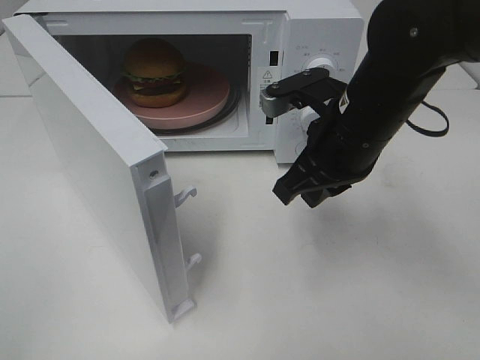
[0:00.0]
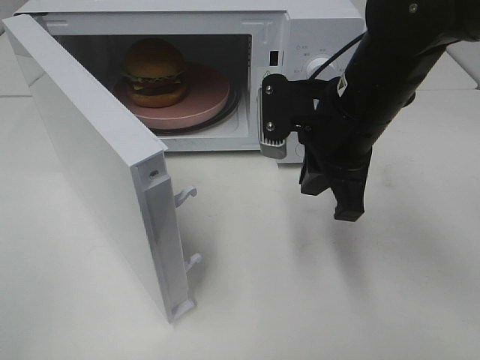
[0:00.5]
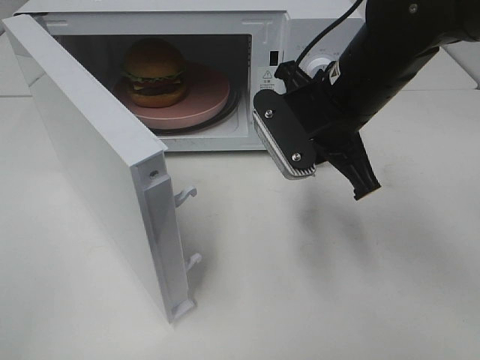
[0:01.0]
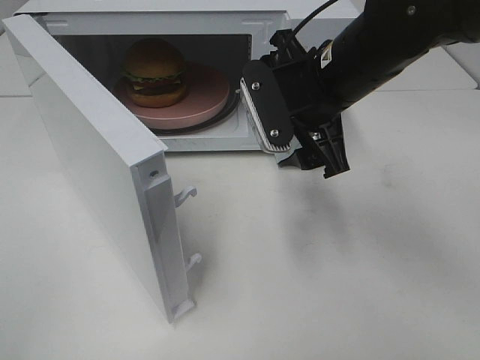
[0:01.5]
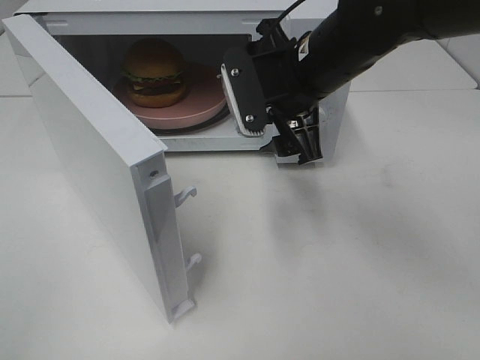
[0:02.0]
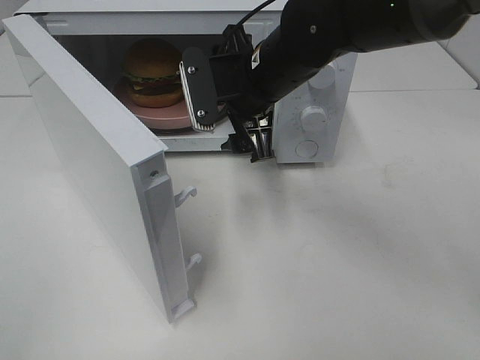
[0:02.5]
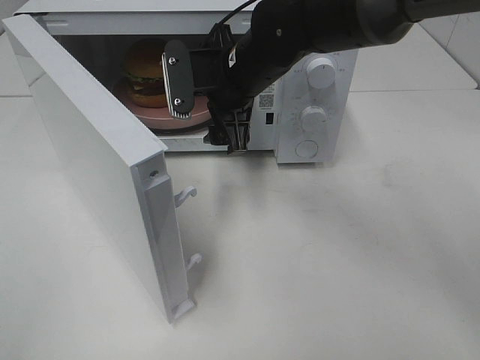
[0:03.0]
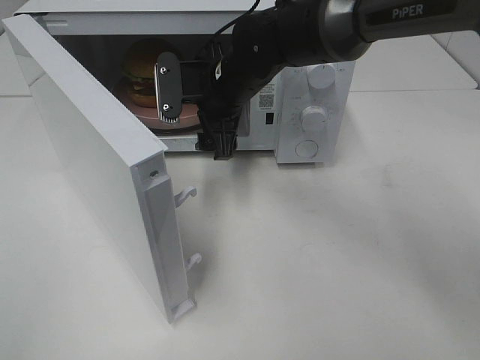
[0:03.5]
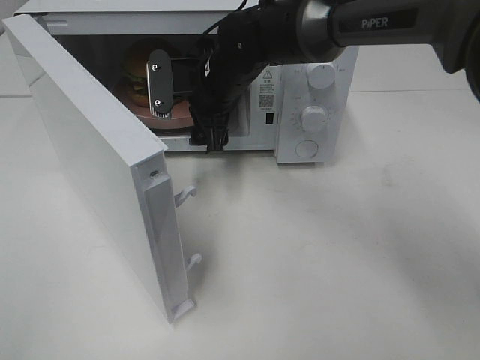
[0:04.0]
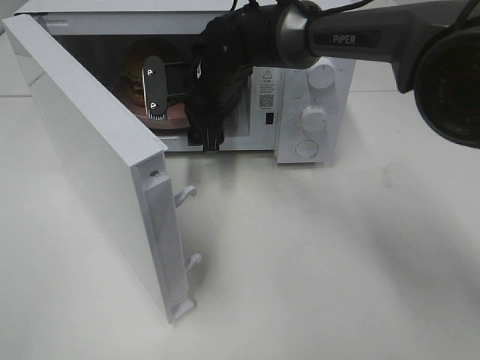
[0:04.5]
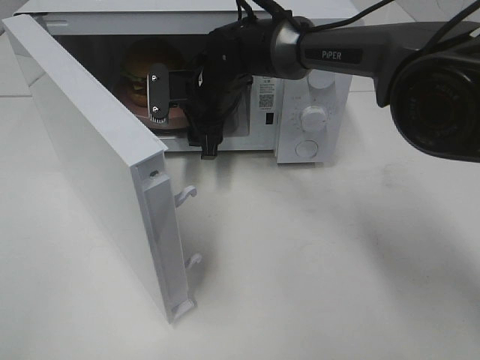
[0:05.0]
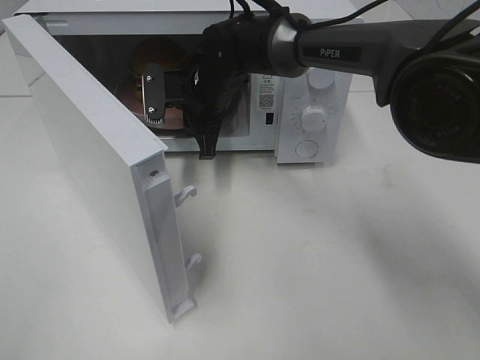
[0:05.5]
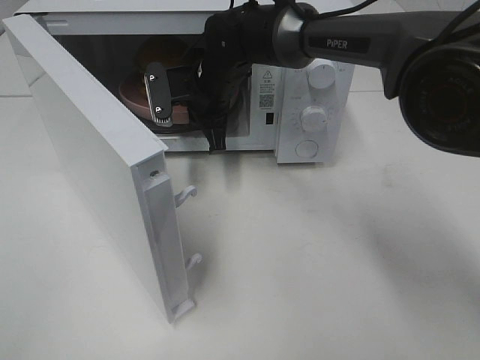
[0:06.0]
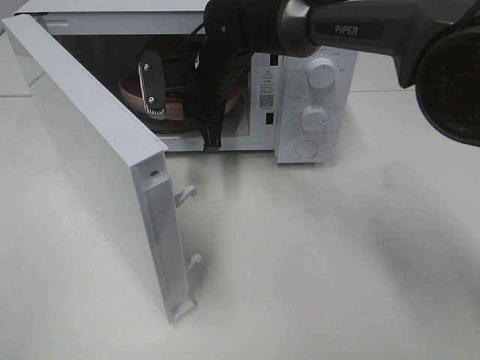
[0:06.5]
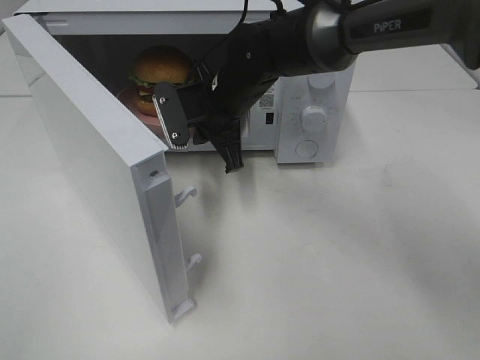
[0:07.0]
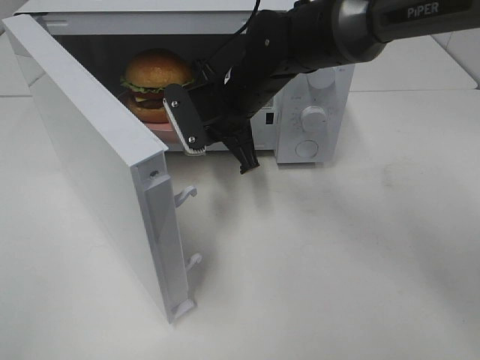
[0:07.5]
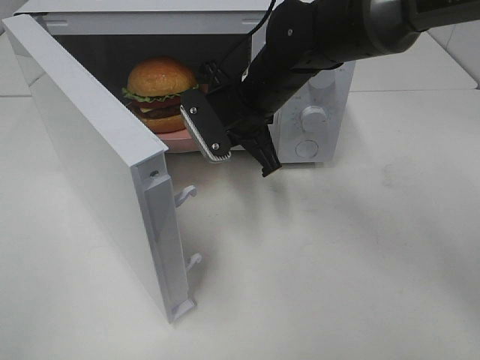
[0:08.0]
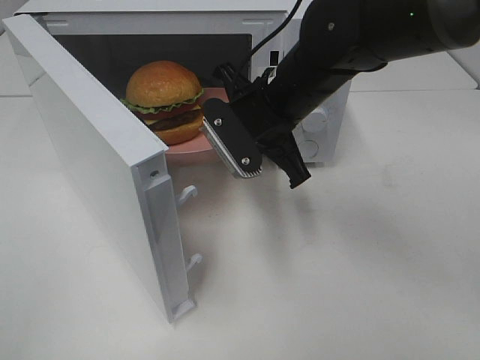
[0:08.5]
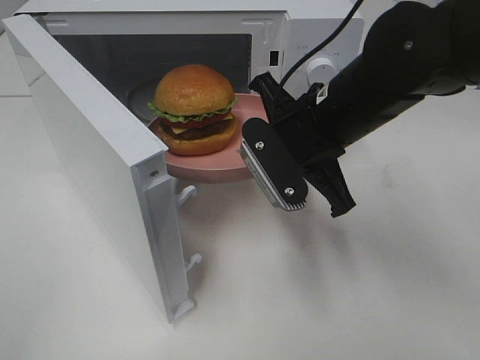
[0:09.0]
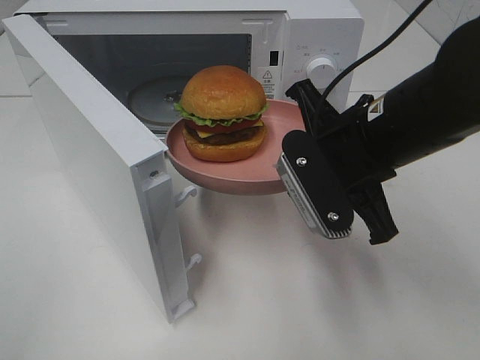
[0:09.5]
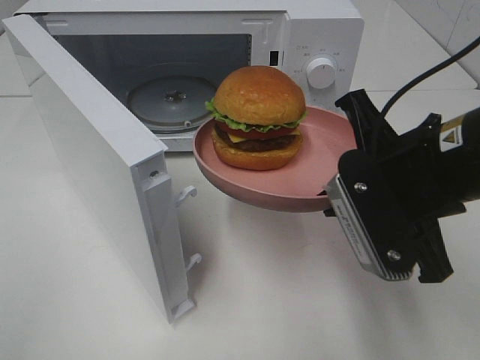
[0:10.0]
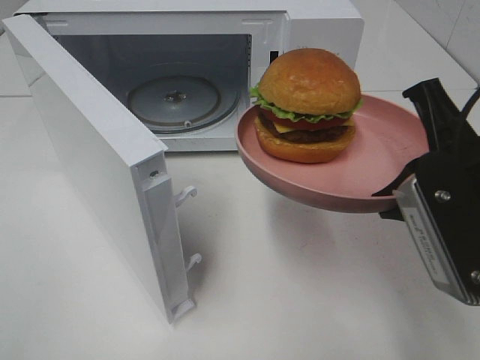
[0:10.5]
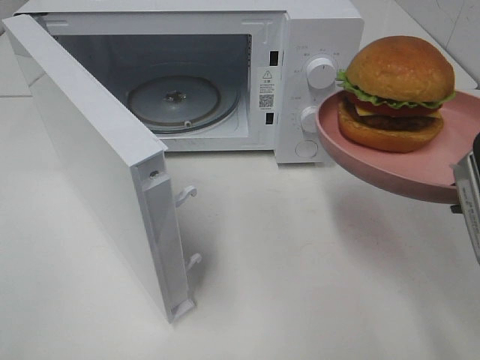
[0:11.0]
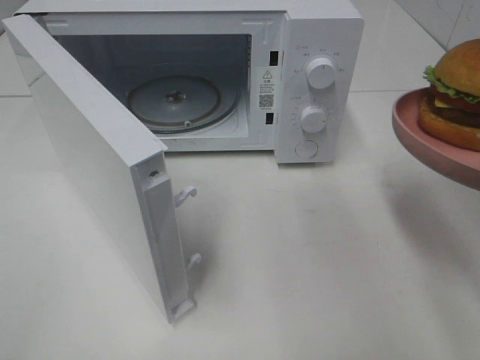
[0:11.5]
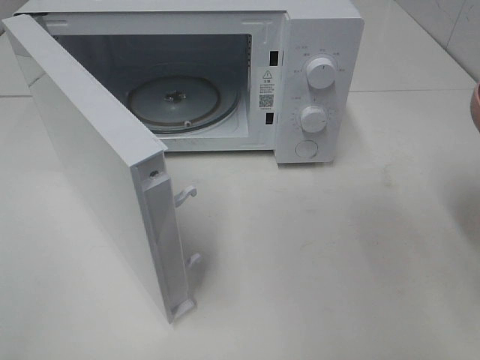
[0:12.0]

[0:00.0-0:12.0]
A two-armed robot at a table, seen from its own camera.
Task of the whole recording: Heat the burger.
Step, 0.0 to 6.0 s: Right hand: grab the plate with the hamburger.
0.0 to 2.0 s: The right gripper goes approximately 5 cm forward, and opens its fingers.
2.0 to 4.0 s: The right gripper moves to the left, forward and downward, approximately 15 cm.
4.0 to 6.0 s: The right gripper closes up.
6.0 to 8.0 s: The right gripper shifts some 10 cm backward and to the right.
8.0 to 10.0 s: The right gripper moves backward and to the right, some 20 cm.
10.0 to 12.0 s: The right gripper heads to the right, covering roughly 10 cm.

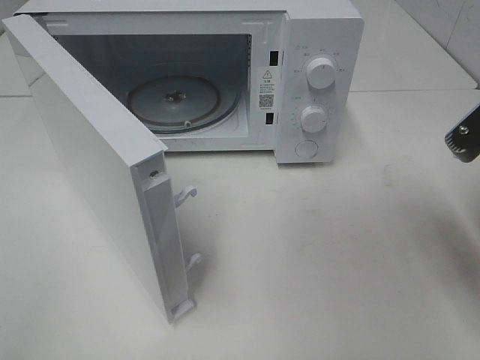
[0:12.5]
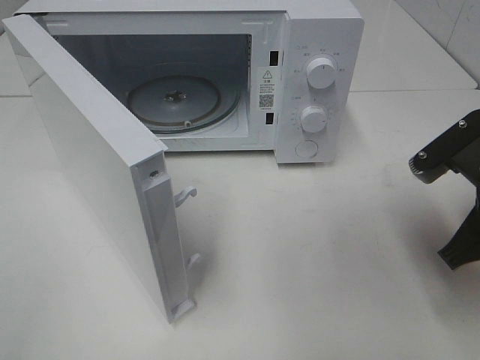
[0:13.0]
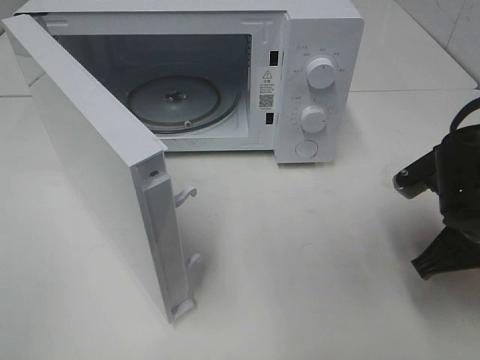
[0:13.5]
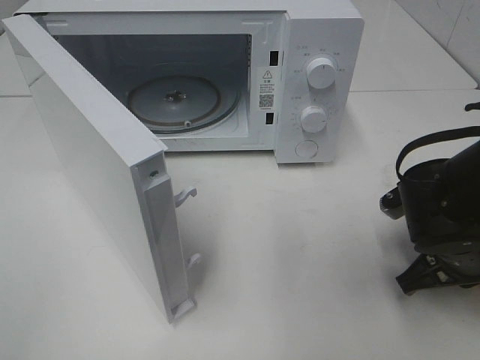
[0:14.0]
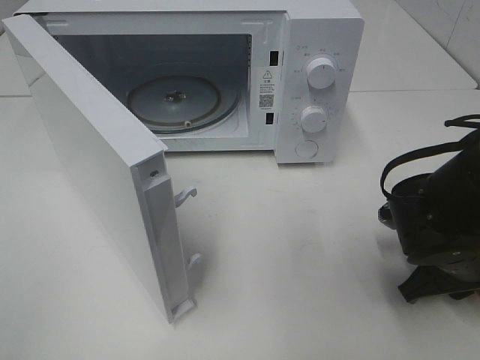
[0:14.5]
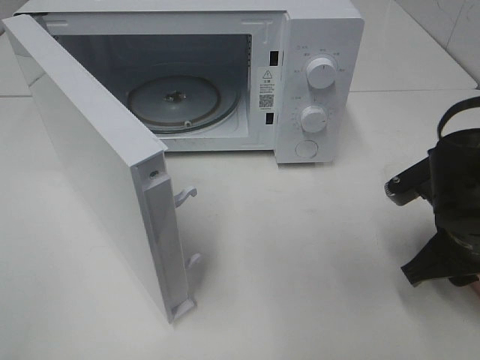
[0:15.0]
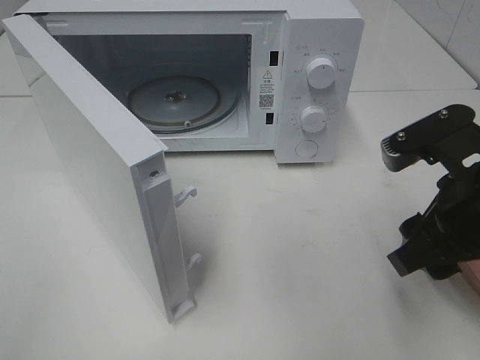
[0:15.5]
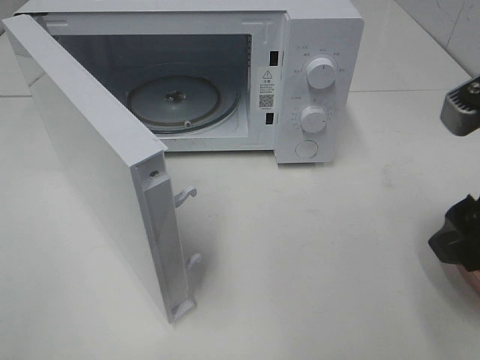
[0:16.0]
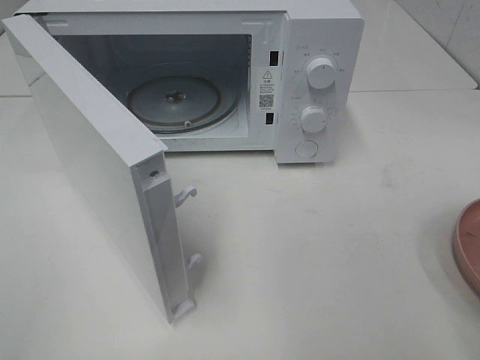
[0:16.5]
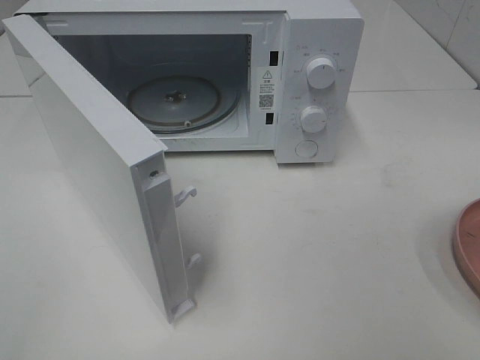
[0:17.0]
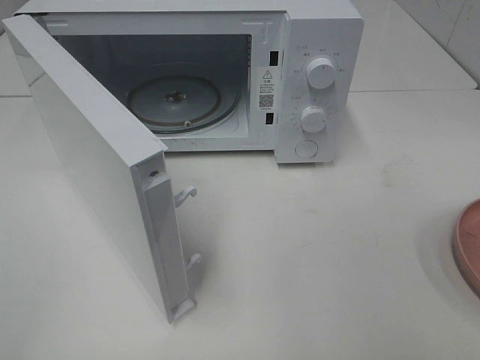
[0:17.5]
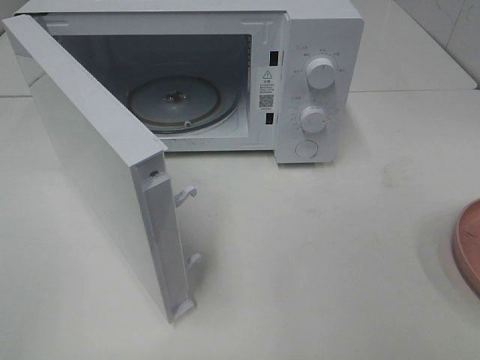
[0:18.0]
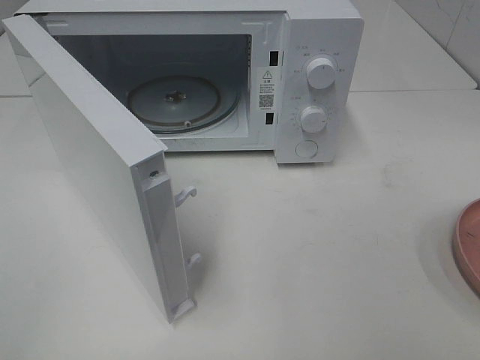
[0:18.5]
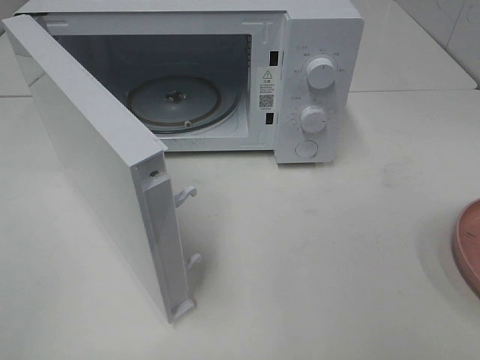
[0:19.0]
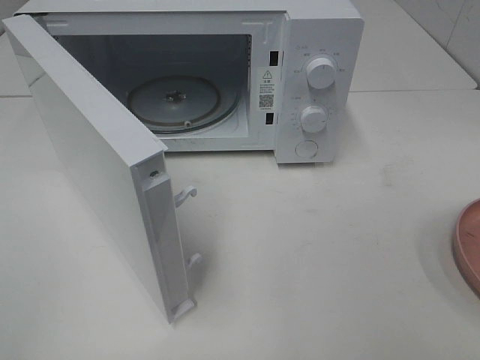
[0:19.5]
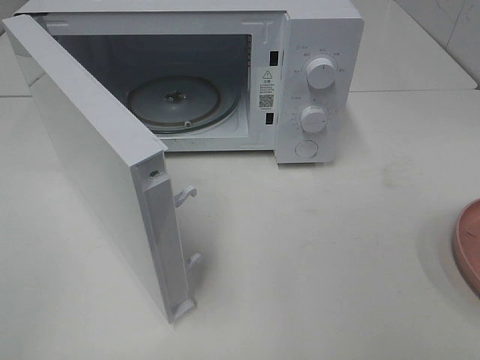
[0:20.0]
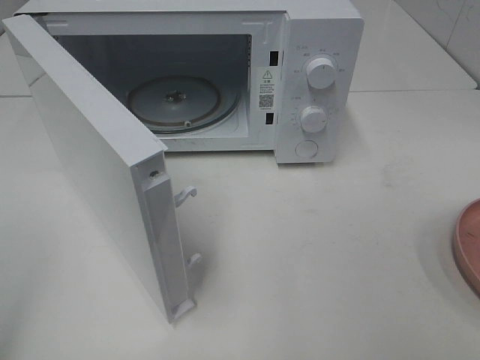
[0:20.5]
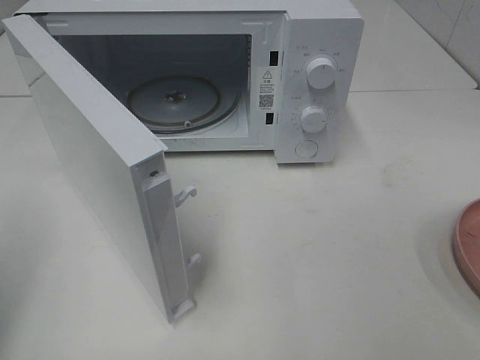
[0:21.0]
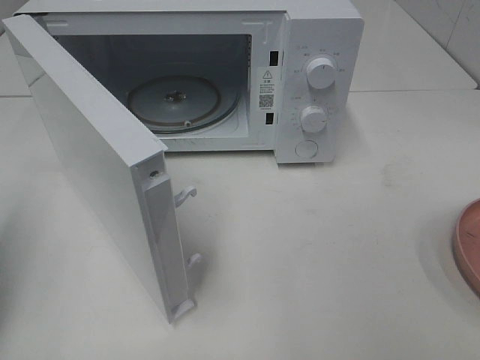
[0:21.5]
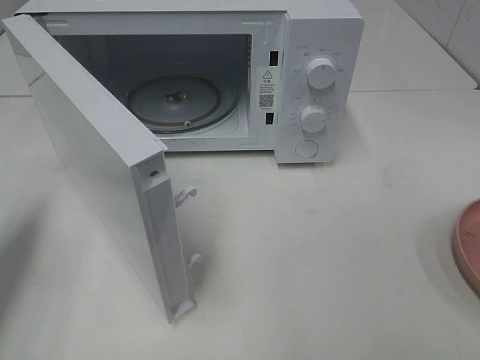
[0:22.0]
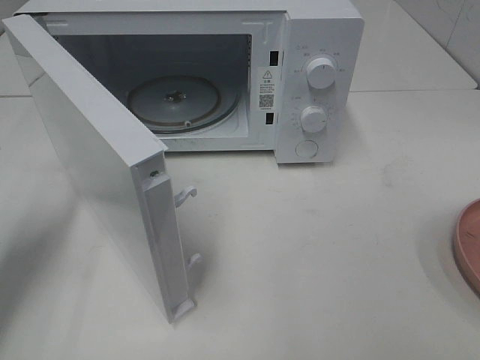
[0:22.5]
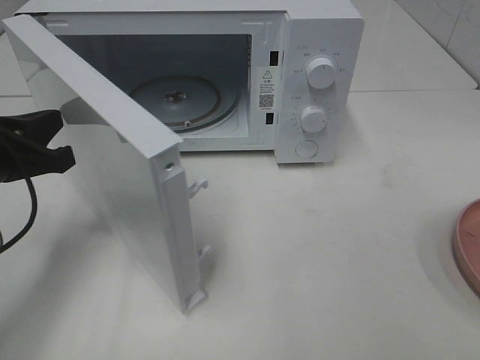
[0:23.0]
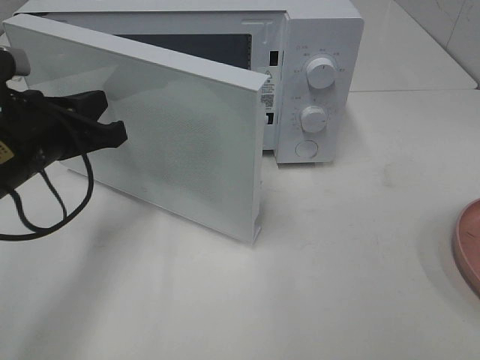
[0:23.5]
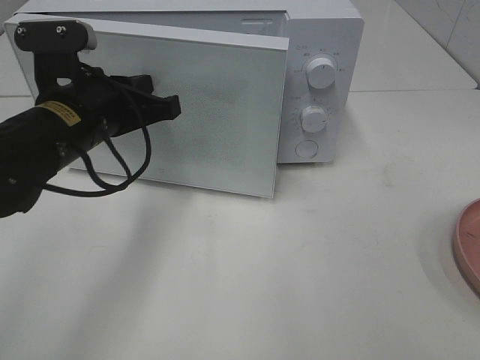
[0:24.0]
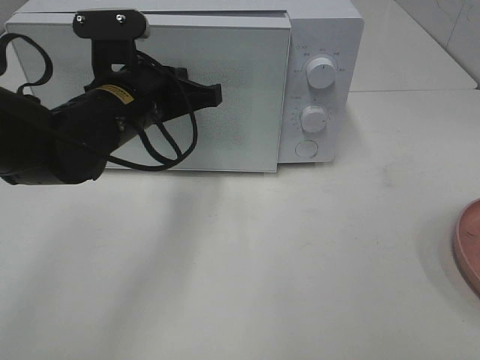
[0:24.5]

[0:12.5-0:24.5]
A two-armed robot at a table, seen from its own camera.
Task of the whole recording: Heat the burger.
Step, 12.5 to 15.0 s: Right hand: place the plate on the table.
12.5 to 14.5 s: The right gripper heads downward, covering some 15 cm.
14.5 to 16.5 s: The right gripper is displaced upward and backward by roughly 25 cm, and opens up.
20.5 to 22.5 s: The left gripper goes some 20 cm forward and downward, and closes its fingers.
22.5 to 24.5 s: The left gripper heads to the right and forward, covering about 20 cm.

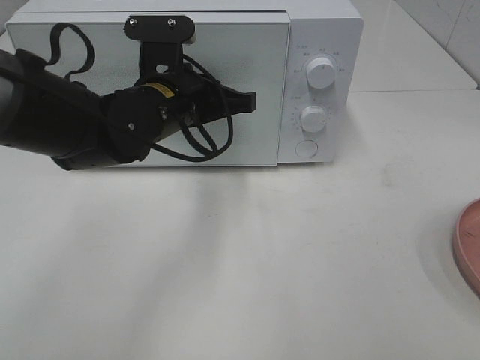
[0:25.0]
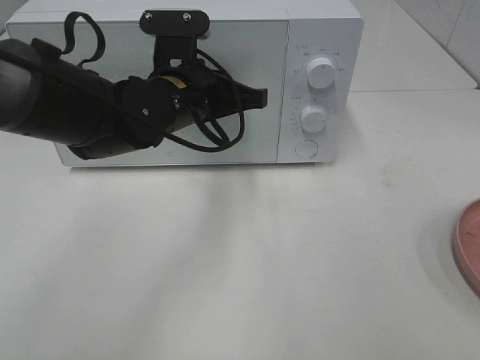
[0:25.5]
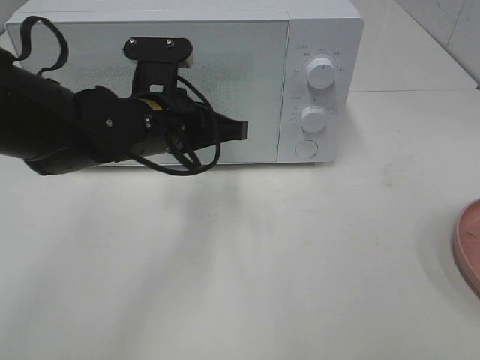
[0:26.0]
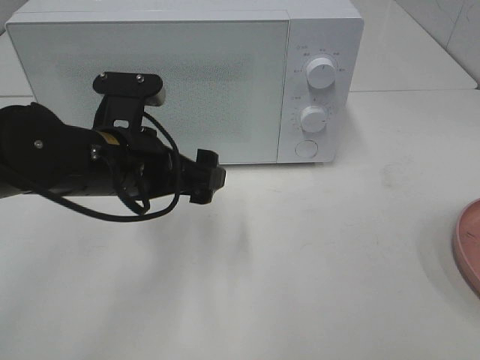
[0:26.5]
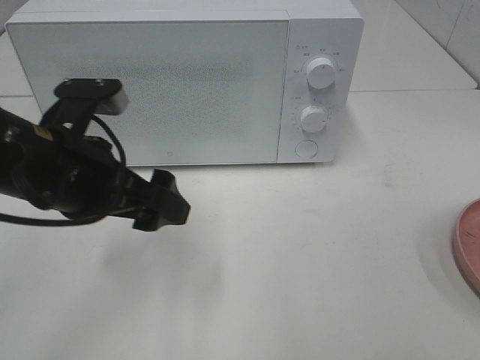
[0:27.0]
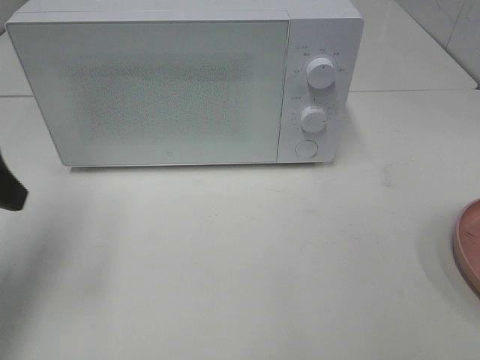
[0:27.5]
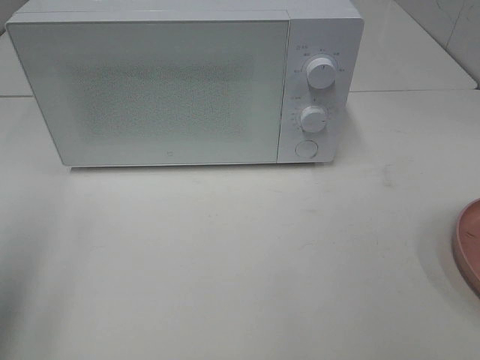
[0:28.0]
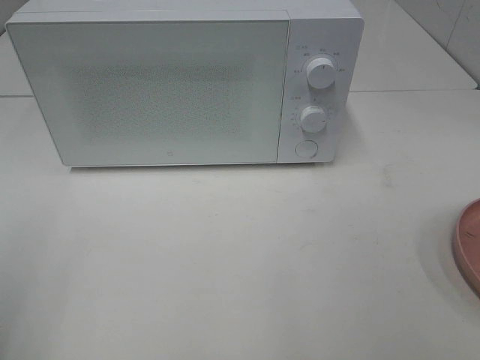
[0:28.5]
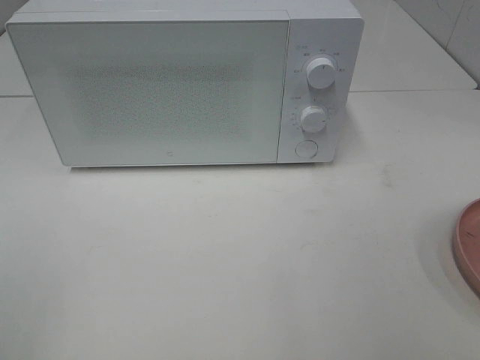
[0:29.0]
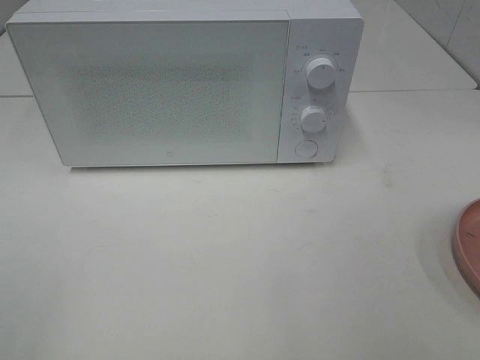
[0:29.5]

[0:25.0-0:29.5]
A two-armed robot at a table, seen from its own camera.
Task of the whole recording: Heat the burger.
25.0 to 27.0 s: The left gripper is displaced backward and to the left by about 15 cm, and opens up.
27.0 to 29.5 s: The left gripper shifts approximately 30 cm backward and to the left.
